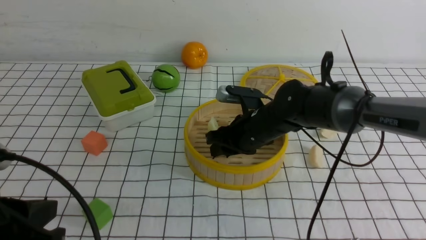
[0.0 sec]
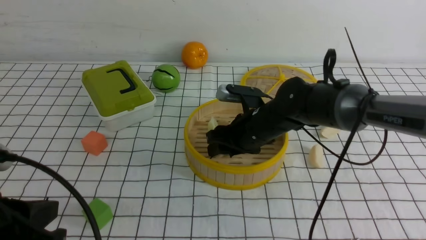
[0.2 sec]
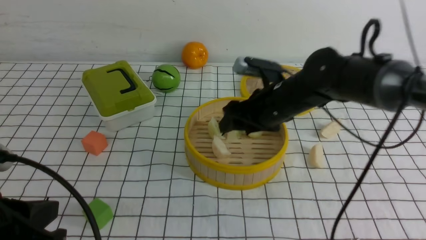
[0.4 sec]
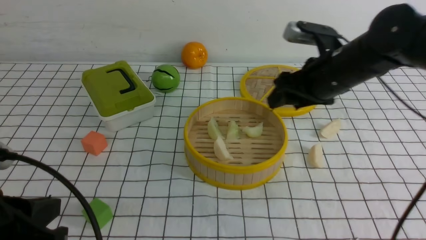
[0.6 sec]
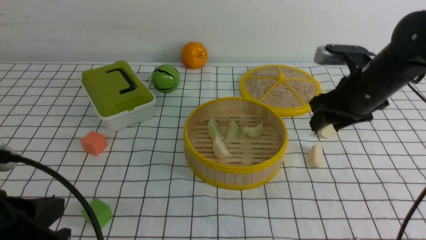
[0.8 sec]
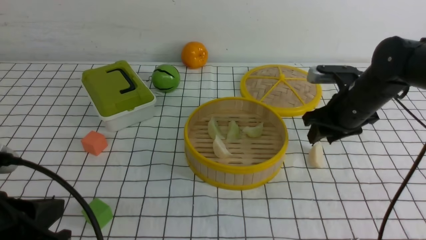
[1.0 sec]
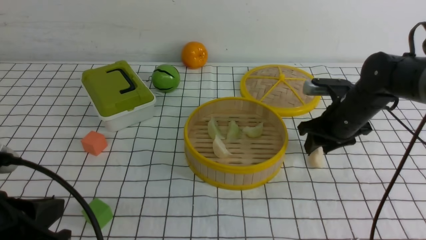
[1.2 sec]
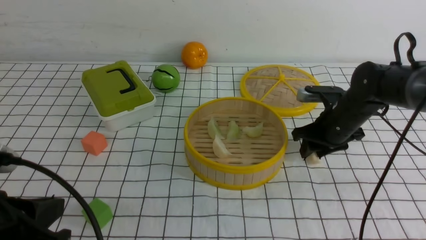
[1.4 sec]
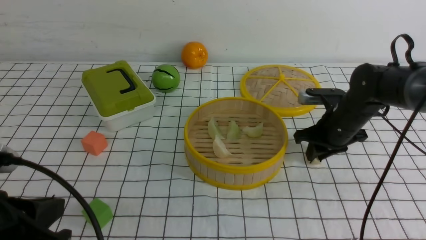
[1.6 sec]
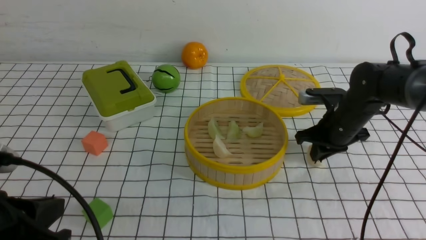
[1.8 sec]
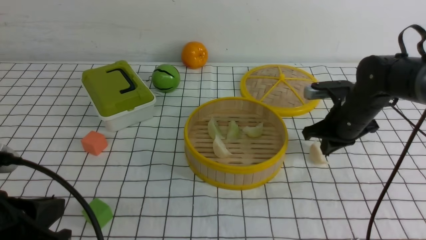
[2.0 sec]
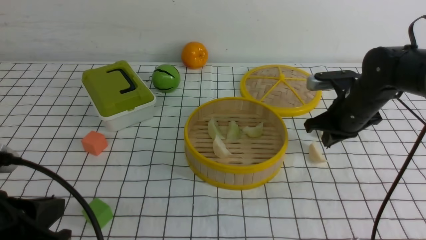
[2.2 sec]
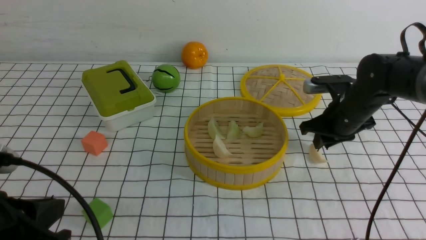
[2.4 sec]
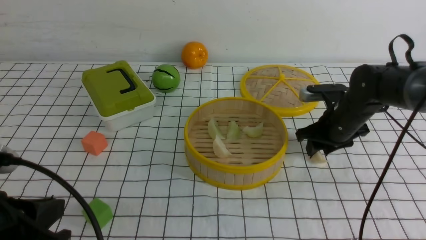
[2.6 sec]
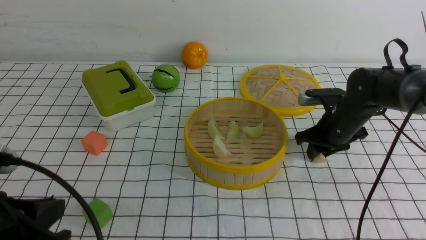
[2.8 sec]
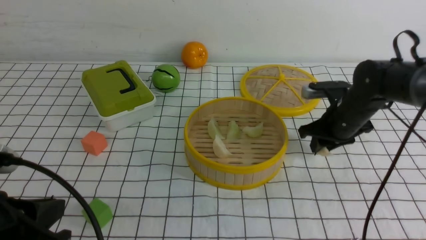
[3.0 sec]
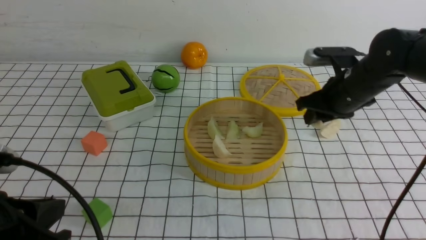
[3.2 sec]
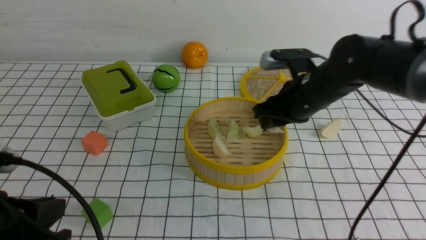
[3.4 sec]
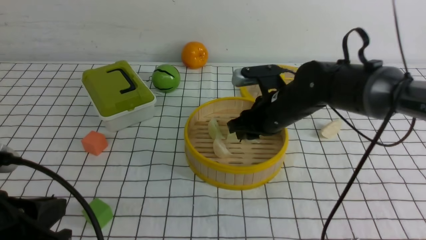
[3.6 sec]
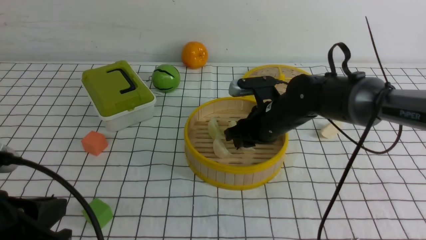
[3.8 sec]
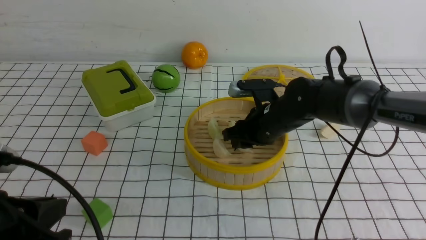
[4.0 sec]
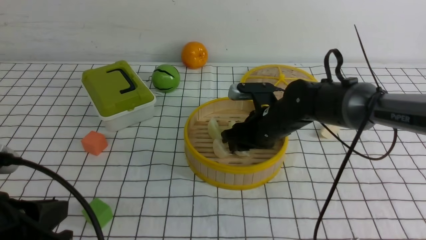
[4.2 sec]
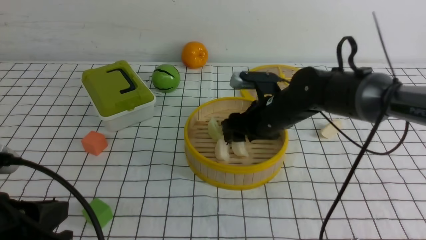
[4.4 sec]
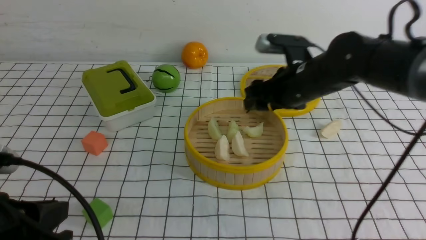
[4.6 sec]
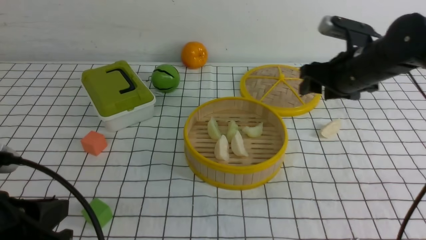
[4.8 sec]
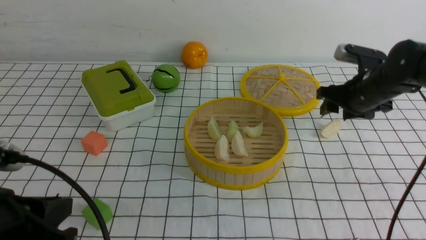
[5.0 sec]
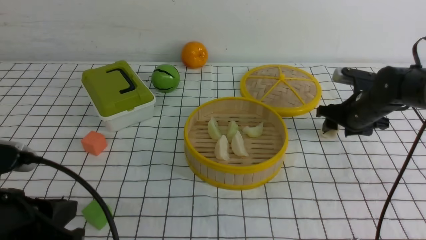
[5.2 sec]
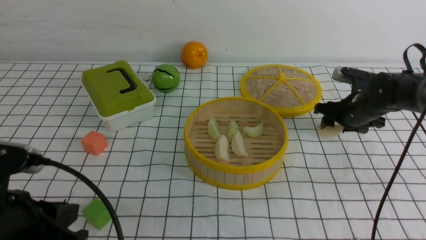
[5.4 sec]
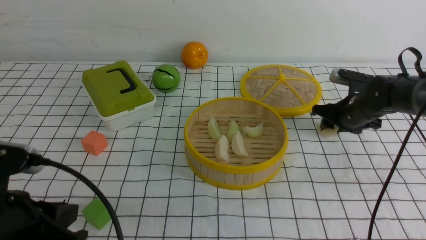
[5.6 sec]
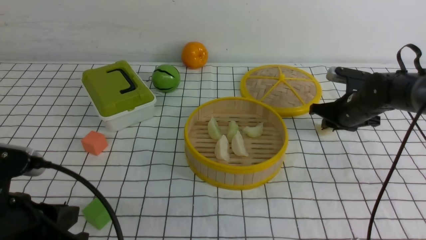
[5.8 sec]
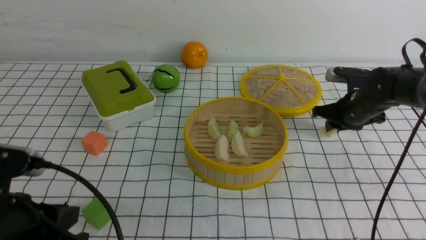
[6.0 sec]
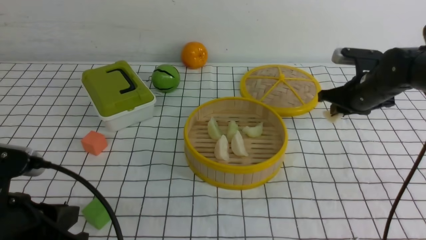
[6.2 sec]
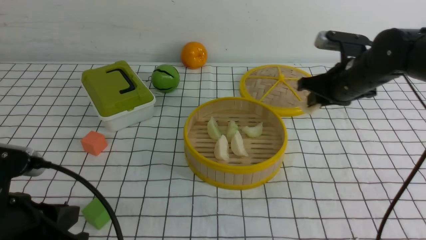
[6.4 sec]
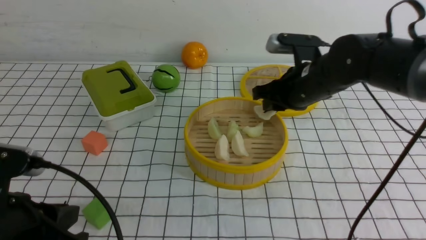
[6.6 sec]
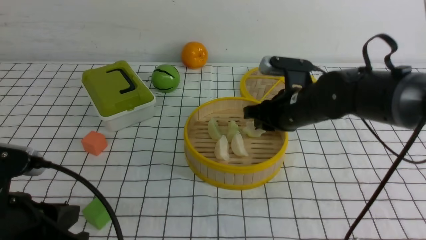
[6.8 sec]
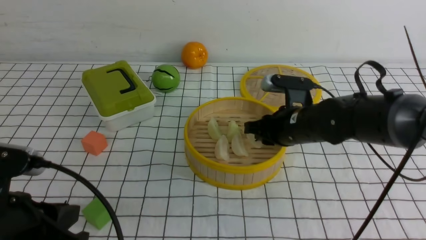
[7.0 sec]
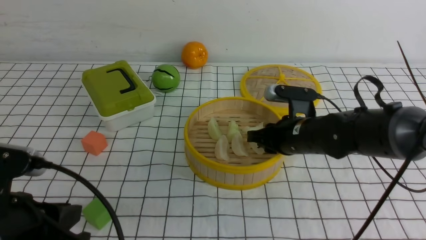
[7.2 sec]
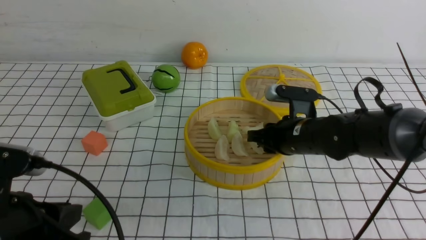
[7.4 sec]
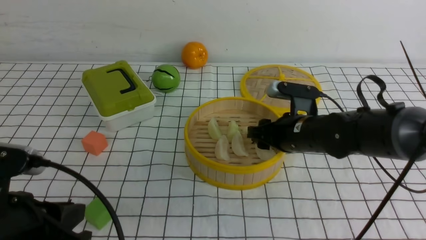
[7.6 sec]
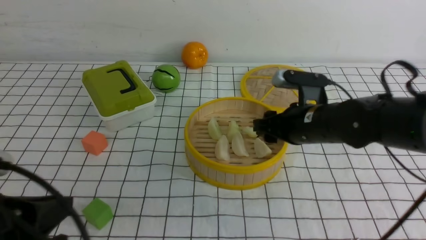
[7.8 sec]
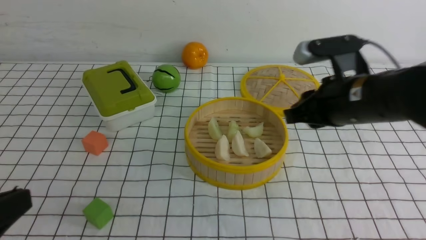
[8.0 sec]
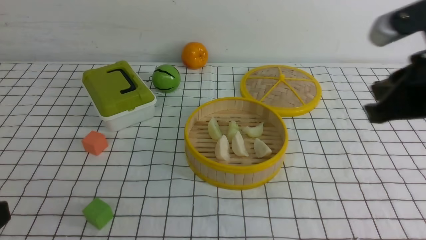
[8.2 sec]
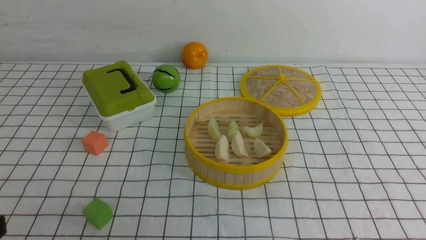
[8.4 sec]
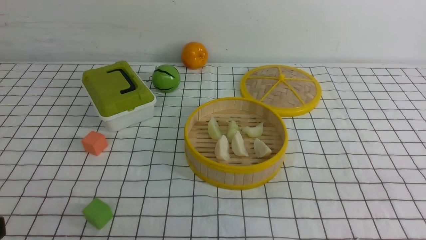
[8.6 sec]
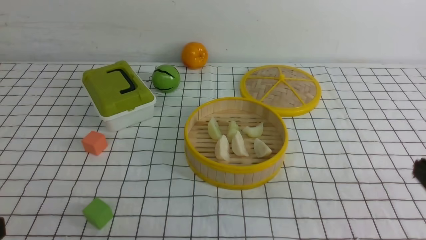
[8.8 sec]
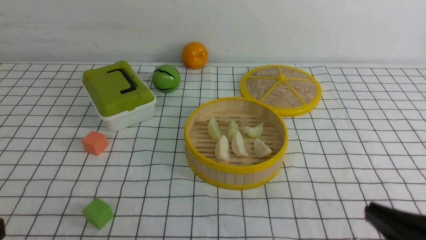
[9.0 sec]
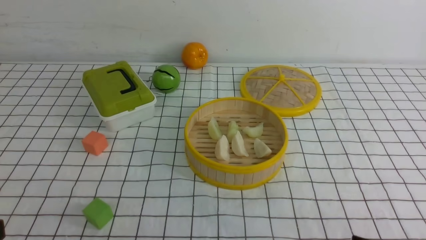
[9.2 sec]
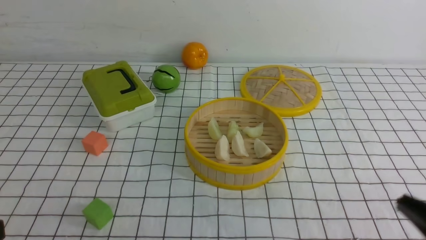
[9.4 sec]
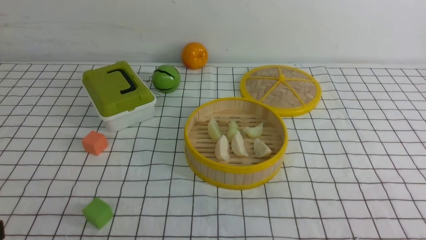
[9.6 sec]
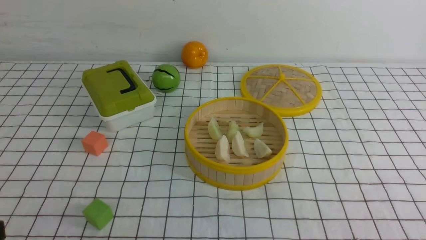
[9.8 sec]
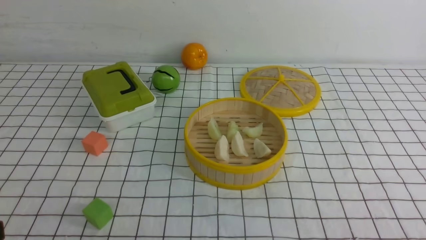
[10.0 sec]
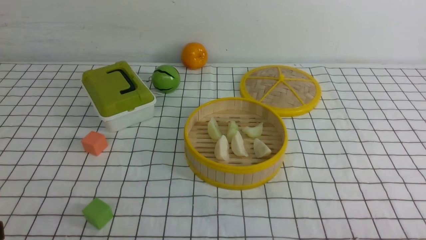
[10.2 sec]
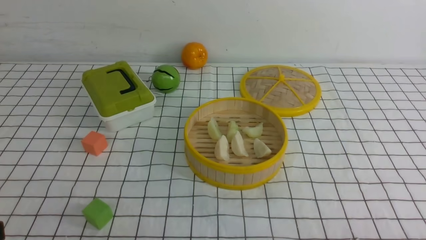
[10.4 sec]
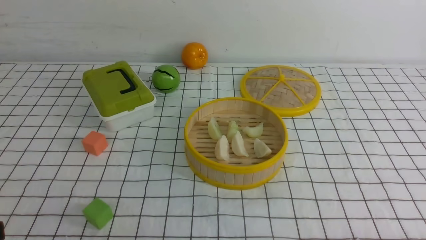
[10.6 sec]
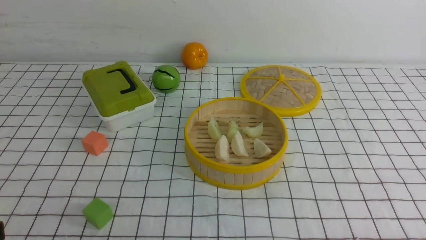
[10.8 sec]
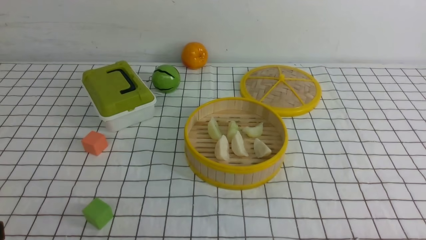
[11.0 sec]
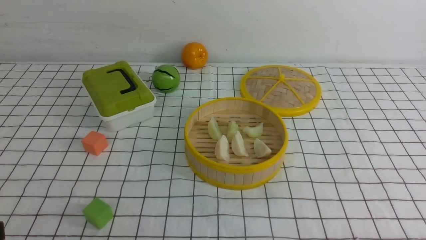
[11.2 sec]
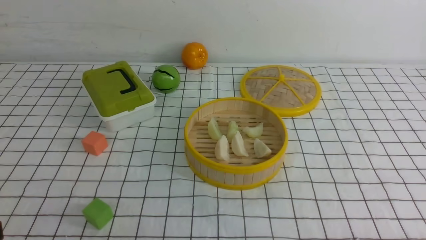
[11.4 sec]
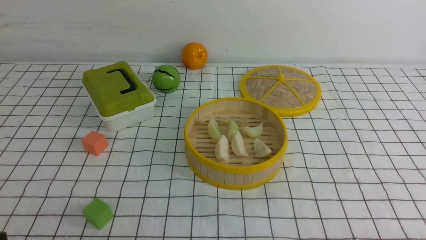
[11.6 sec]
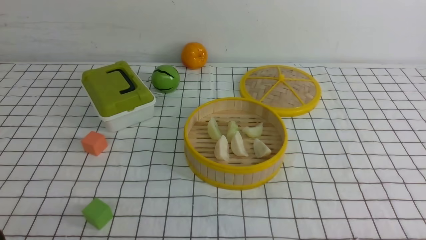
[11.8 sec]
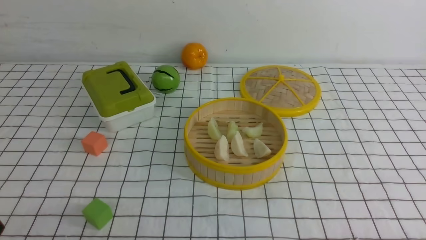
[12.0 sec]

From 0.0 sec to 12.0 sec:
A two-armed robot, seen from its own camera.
Task of the whole recording: put the dumplings into the steamer on the table with the white tablecloth.
Step, from 0.6 sec to 3.0 sec: use the right arm to grab a dumpling.
Step, from 3.2 sec to 4.4 sec: use the right arm to put the dumpling into the steamer.
Step, from 4.8 sec to 6.2 sec: use the right arm to grab a dumpling.
Step, from 6.6 sec to 7.8 sec: use the right arm to put the dumpling into the steamer.
From 0.0 sec to 1.6 sec: The right gripper is displaced to the right by approximately 15 cm, and closes.
From 1.6 sec to 3.0 sec: The grippers move only a little.
From 3.0 sec to 4.4 sec: The right gripper shifts approximately 10 cm to the left, and opens up.
From 4.4 sec to 6.0 sec: The right gripper is displaced to the right by roughly 15 cm, and closes up.
From 6.0 sec to 7.6 sec: The right gripper goes about 15 cm to the left and backward, and opens.
From 7.6 sec to 9.0 sec: The right gripper travels backward by about 25 cm, and closes its fingers. The left gripper travels backward by approximately 5 cm.
From 9.0 sec to 10.4 sec: The right gripper goes roughly 10 cm to the right and downward.

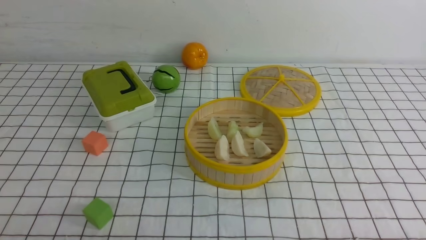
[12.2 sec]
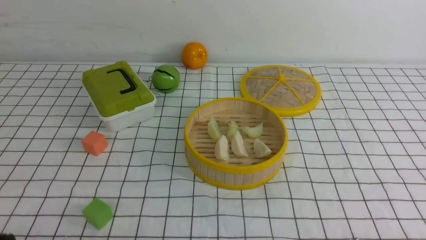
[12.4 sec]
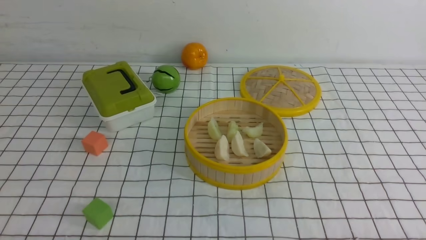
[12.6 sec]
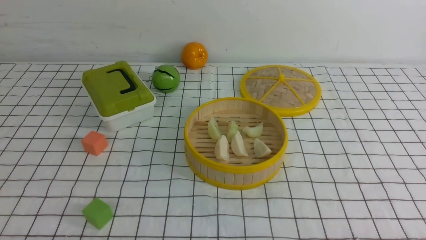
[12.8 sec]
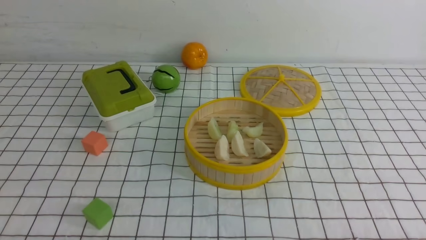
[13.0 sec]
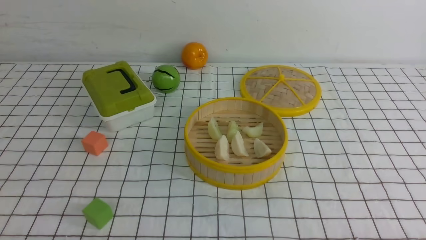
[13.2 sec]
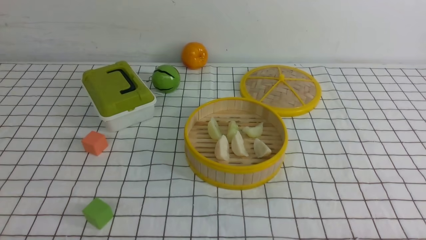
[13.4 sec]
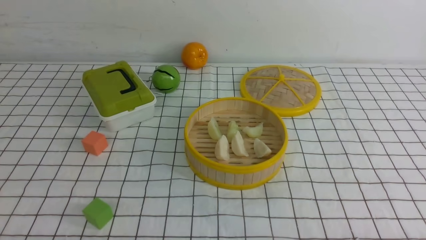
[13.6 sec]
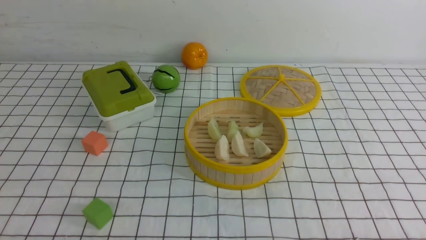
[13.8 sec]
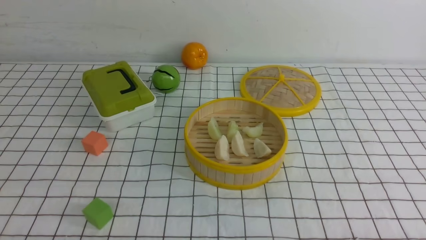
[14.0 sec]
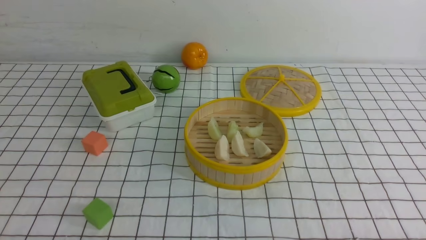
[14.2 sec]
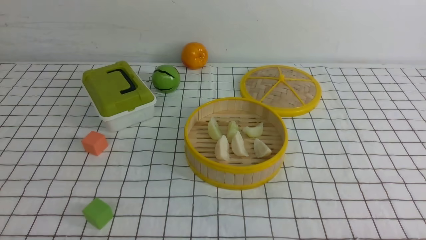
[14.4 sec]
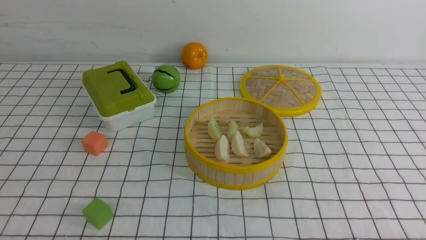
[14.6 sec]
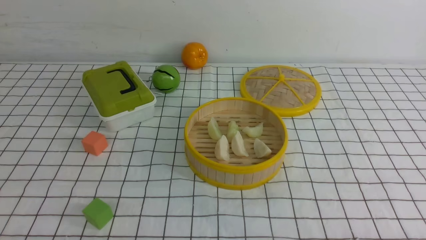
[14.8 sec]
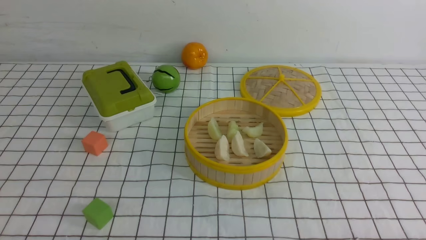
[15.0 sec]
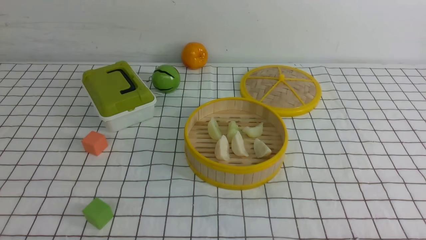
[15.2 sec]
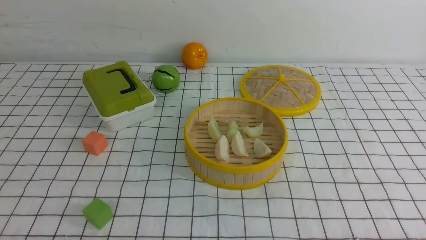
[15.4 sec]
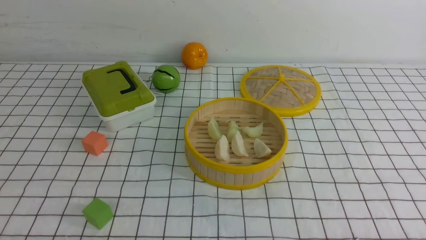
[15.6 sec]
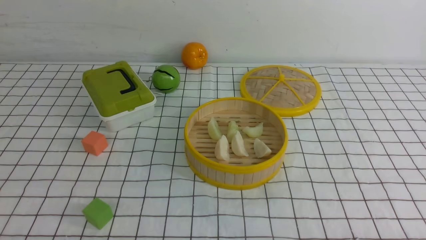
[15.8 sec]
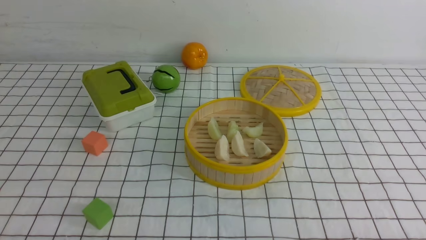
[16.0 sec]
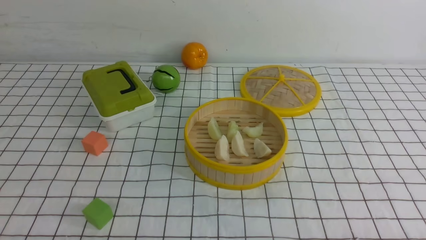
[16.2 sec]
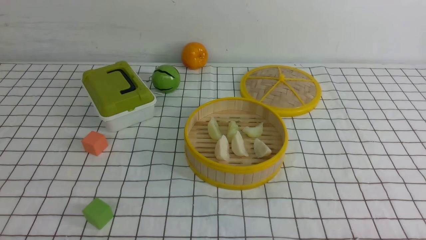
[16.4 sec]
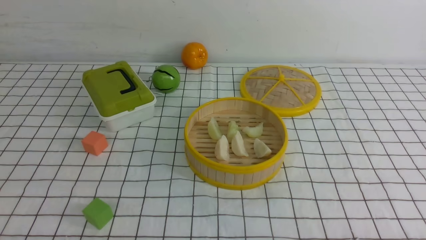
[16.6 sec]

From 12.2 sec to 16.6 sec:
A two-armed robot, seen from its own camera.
Task of the whole recording: put the dumplings into the steamer on the table with the white tablecloth.
From 13.6 sec to 16.6 sec: Both grippers stay put.
